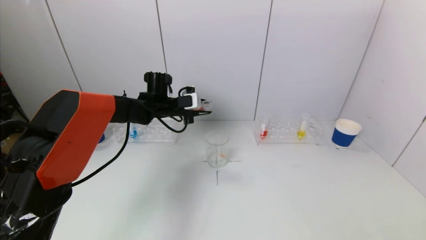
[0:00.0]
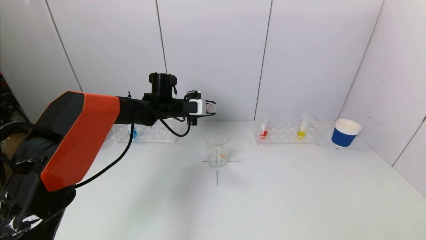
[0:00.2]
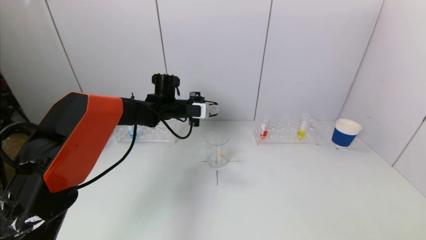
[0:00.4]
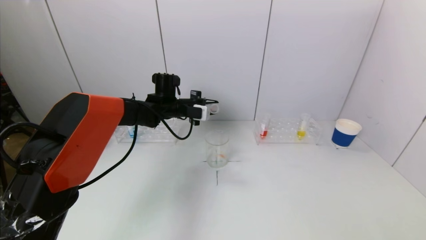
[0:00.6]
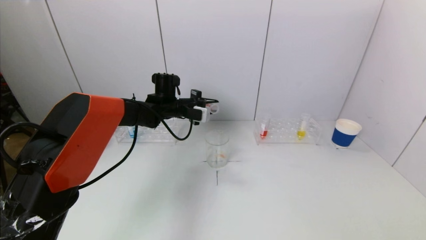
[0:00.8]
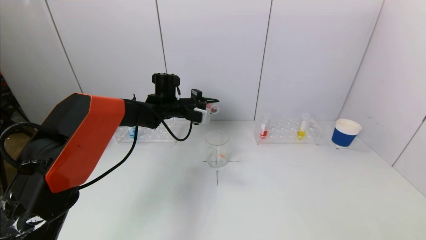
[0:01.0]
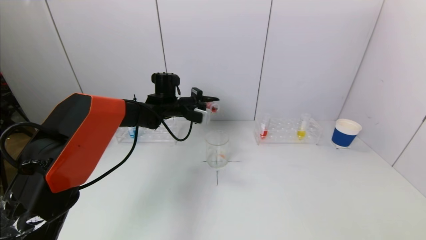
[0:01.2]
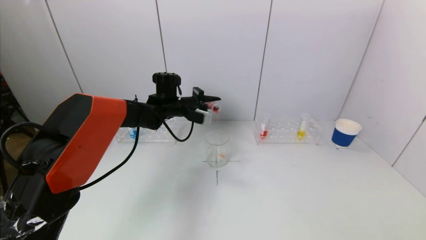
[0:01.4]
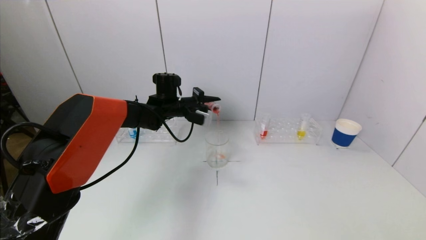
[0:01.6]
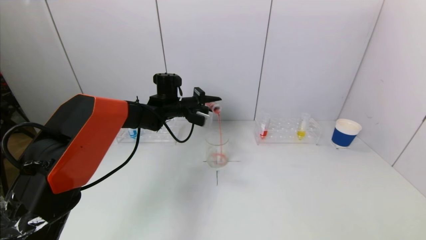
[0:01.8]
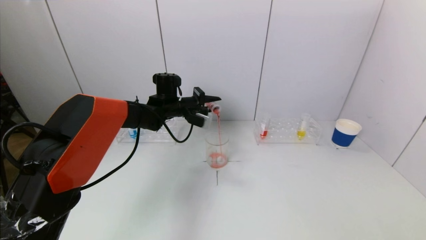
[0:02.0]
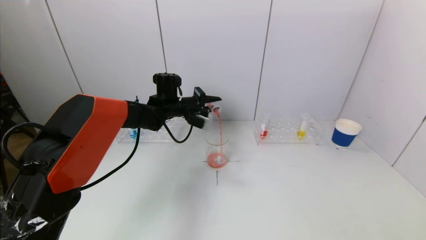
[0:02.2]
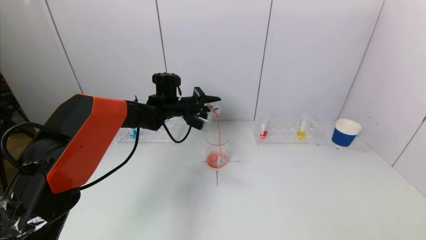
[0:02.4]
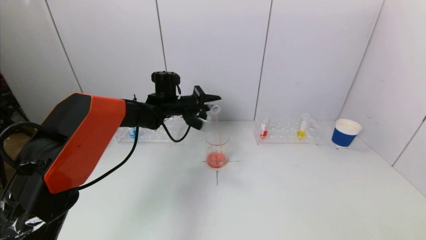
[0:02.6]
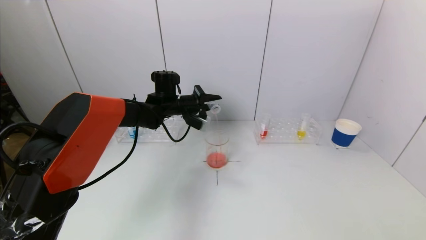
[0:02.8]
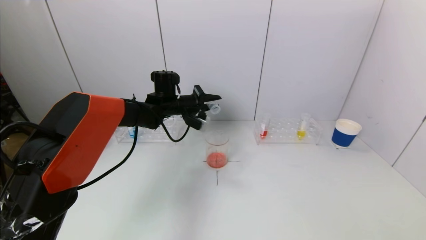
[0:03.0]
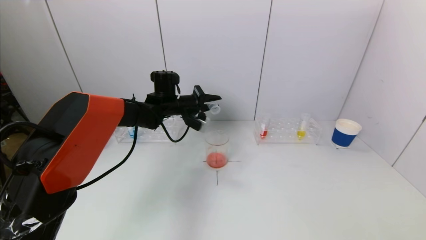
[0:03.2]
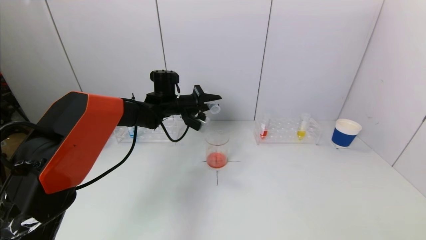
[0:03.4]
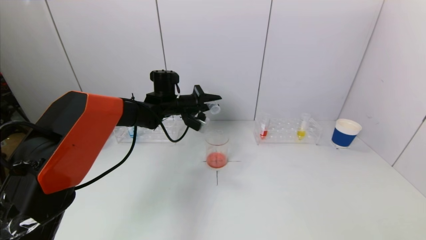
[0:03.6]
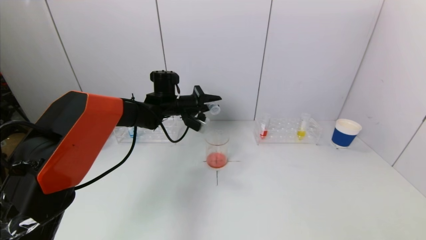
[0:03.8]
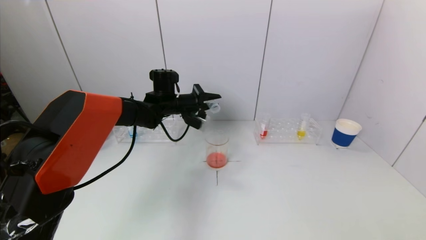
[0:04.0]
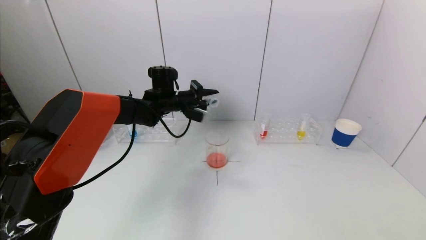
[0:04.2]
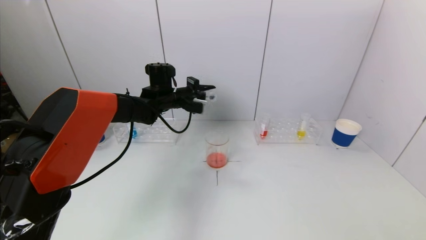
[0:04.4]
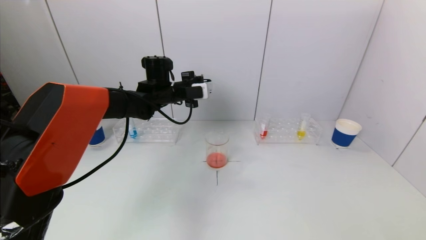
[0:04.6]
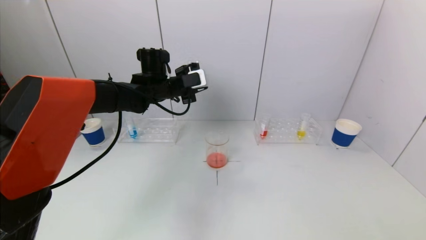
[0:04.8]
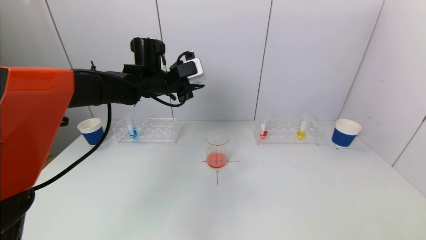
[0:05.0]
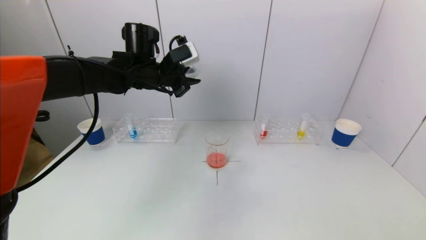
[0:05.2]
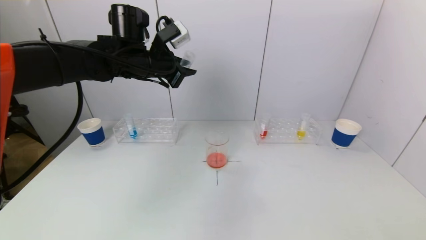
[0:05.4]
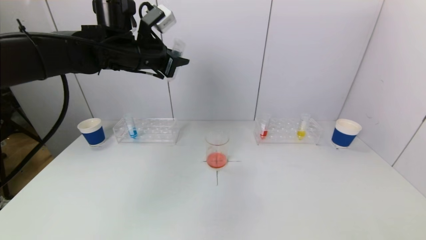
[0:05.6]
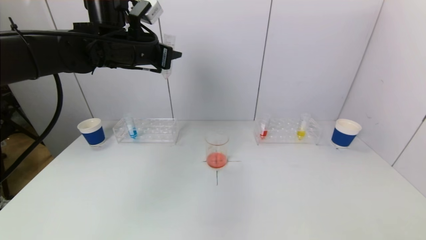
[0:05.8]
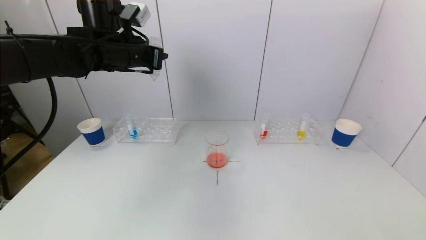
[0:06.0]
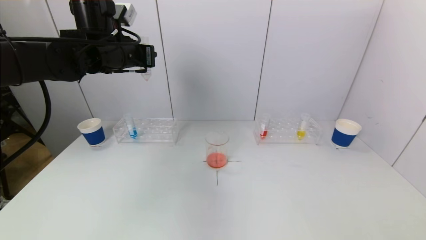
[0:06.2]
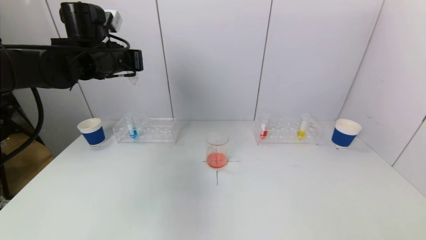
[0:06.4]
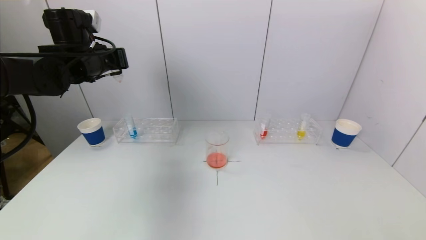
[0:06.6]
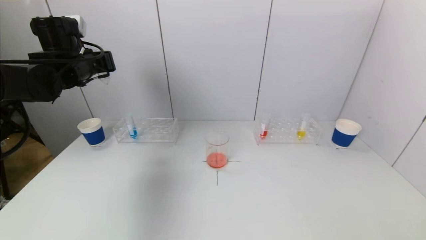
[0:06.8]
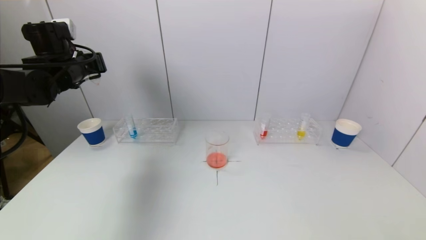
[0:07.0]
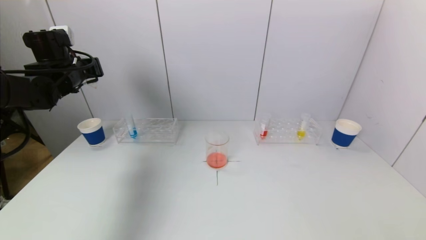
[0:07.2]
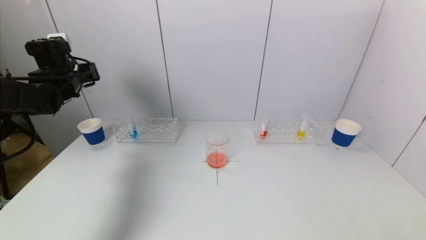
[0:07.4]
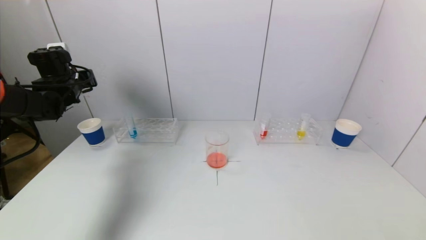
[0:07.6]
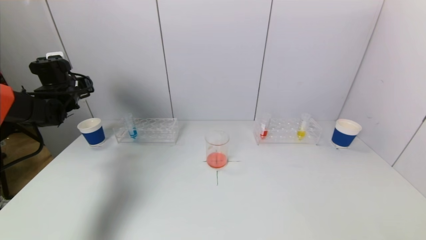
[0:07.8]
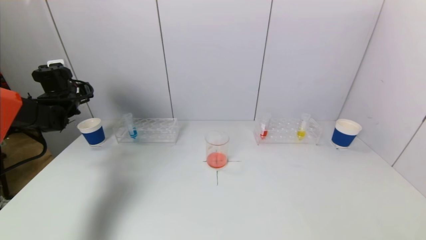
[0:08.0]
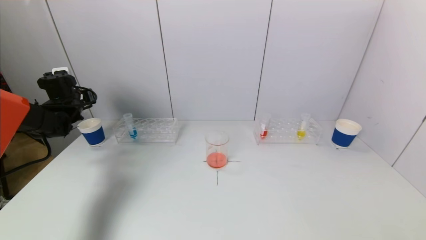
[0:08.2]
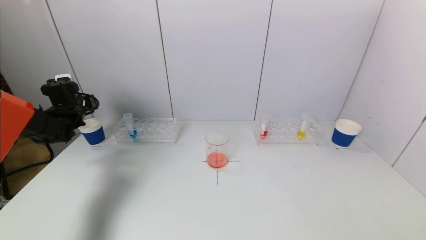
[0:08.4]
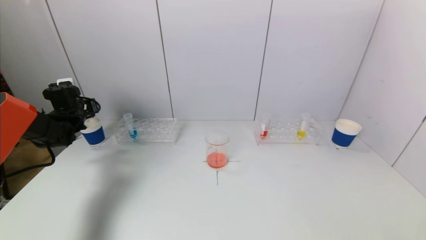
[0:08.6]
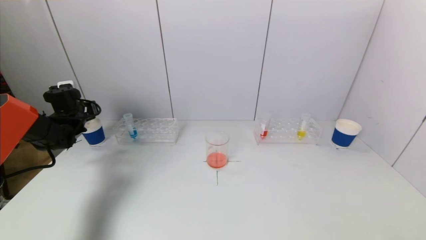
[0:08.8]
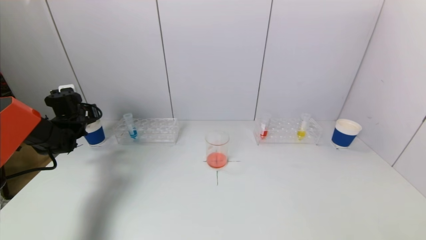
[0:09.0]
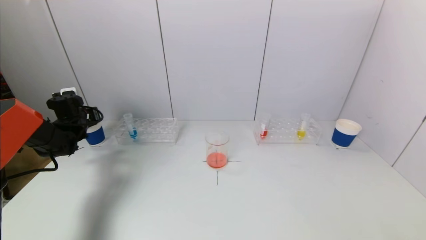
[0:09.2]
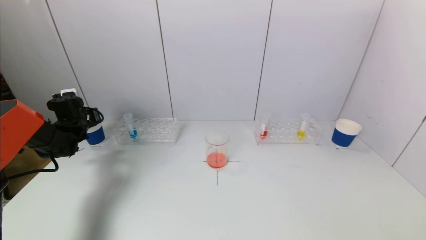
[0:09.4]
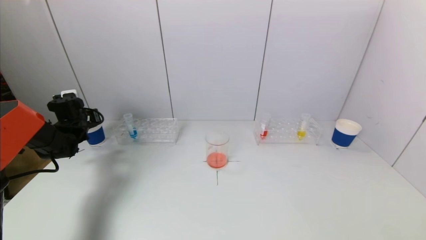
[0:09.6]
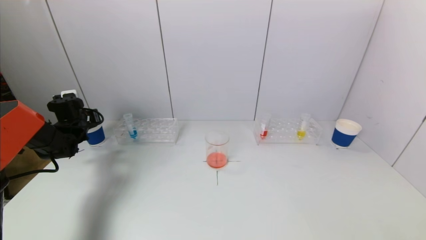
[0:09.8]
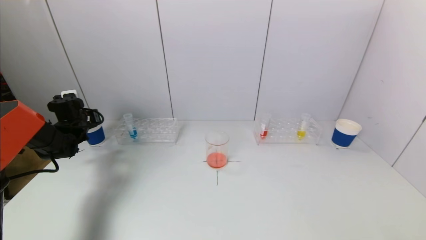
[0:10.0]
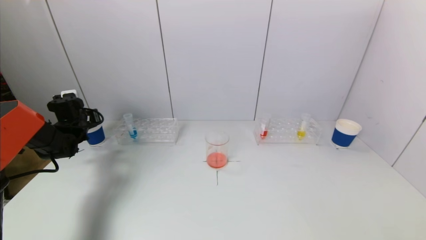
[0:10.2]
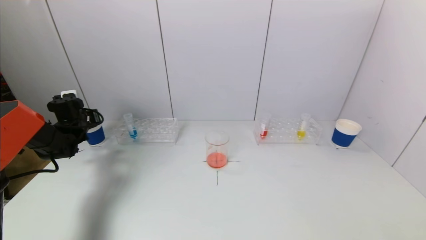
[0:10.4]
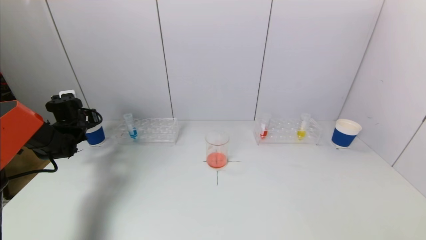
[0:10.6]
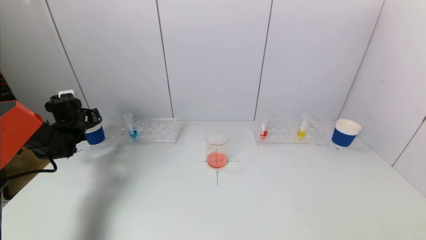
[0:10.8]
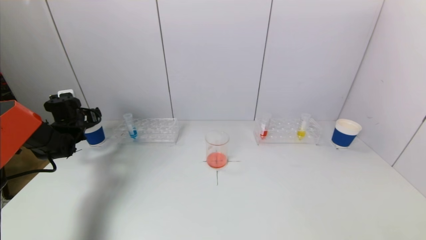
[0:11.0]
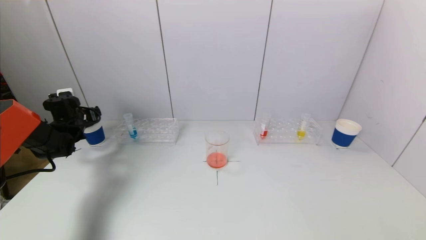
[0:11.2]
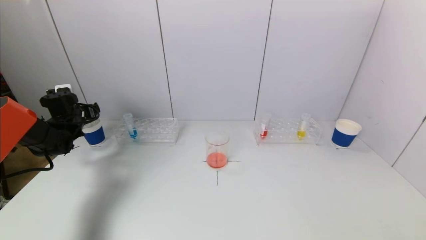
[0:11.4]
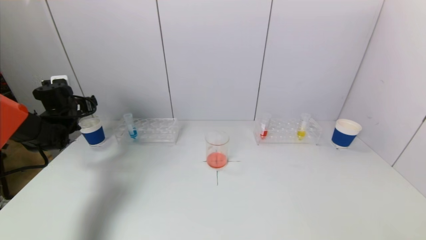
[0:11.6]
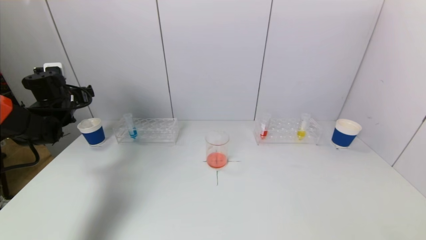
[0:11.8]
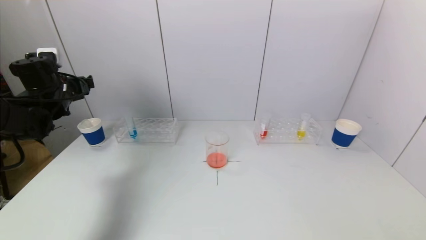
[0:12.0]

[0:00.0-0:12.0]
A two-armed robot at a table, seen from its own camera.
Task of the whole recording: pick up a test tube with pigment on left test tube rack and a test tube with pigment on right test tube rack by grippers and pour them into the beaker.
Step, 0:00.0 to 0:03.0: Pour the red reagent into the graduated cylinder with the left gripper.
Step, 0:03.2 to 0:11.2: Place the test tube into the paper cup with the left gripper.
0:01.6 to 0:03.0: The grippers move only a little.
0:04.4 to 0:06.0: The left gripper shifts about 15 cm upward, backward and to the left.
0:06.0 to 0:07.6: The left gripper is displaced to the left and downward by roughly 20 cm.
0:07.6 to 0:09.0: The left gripper heads downward, covering some 10 cm.
0:09.0 to 0:10.4: Both grippers stay about where they are.
0:10.4 to 0:12.0: The left gripper shifts approximately 15 cm upward and backward, and opens.

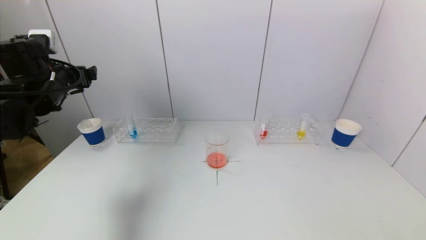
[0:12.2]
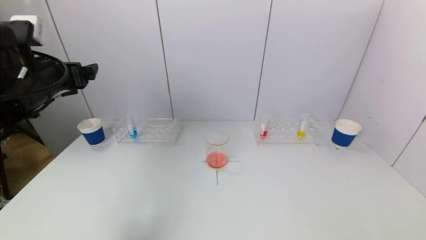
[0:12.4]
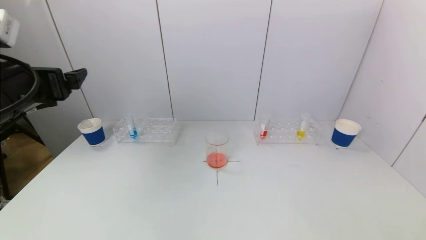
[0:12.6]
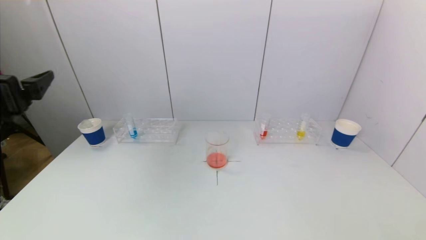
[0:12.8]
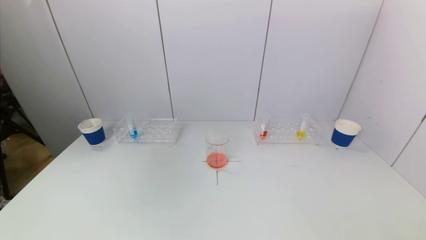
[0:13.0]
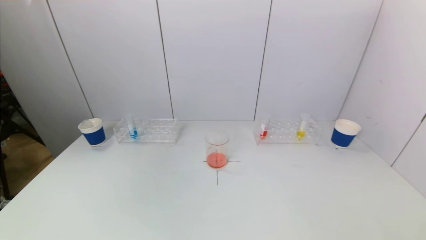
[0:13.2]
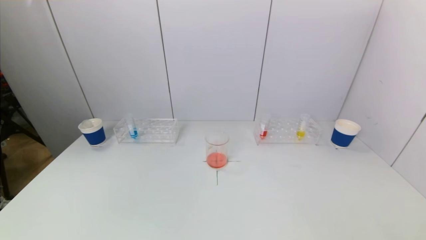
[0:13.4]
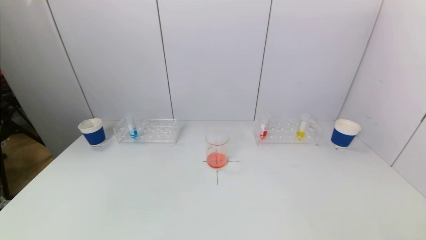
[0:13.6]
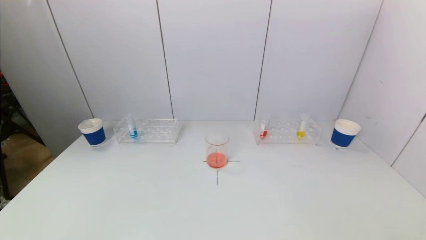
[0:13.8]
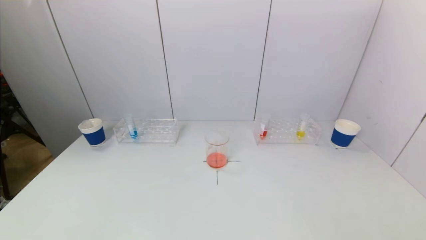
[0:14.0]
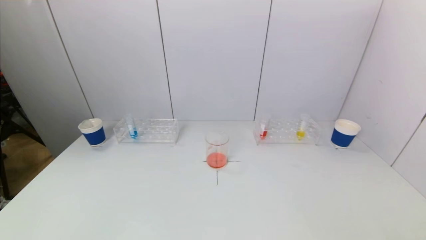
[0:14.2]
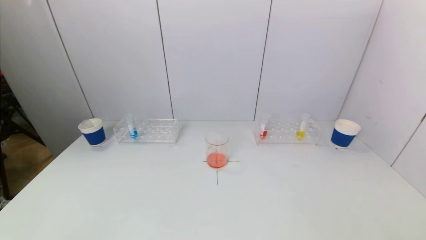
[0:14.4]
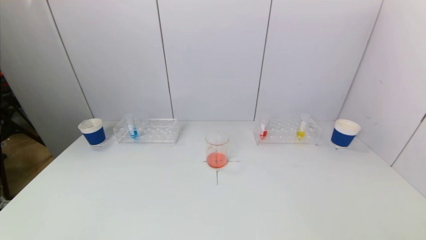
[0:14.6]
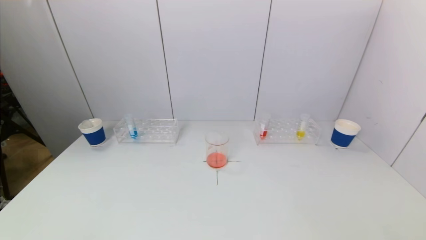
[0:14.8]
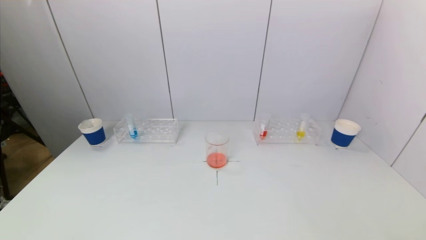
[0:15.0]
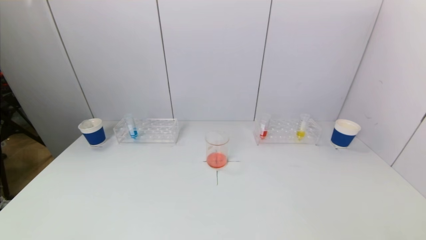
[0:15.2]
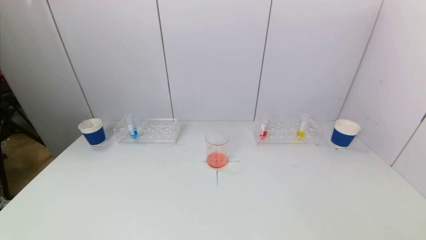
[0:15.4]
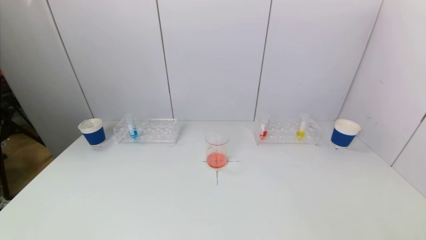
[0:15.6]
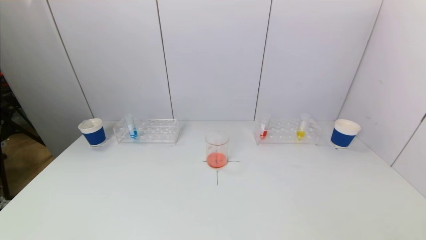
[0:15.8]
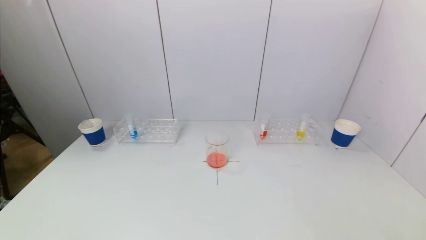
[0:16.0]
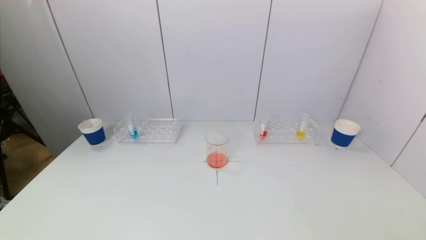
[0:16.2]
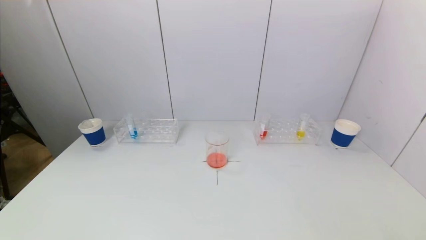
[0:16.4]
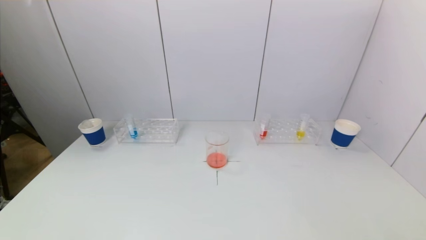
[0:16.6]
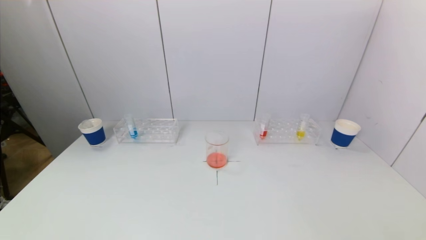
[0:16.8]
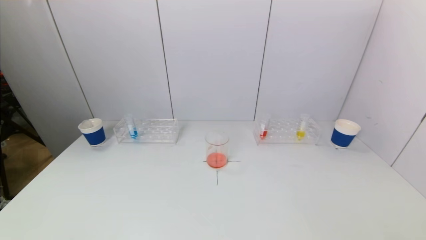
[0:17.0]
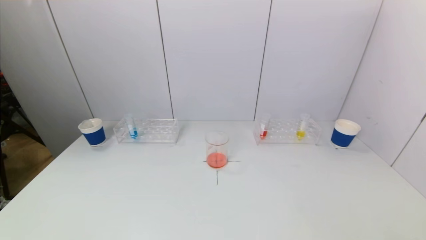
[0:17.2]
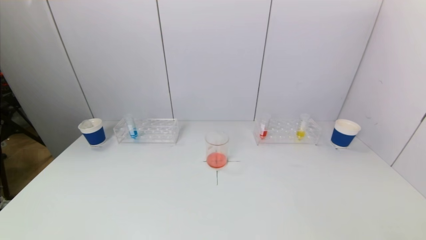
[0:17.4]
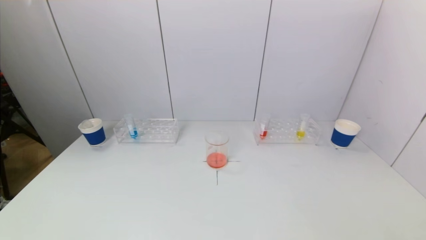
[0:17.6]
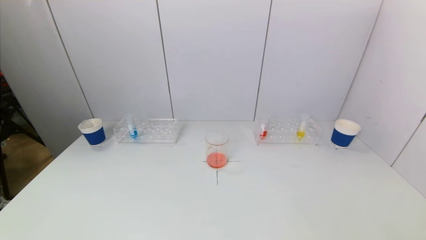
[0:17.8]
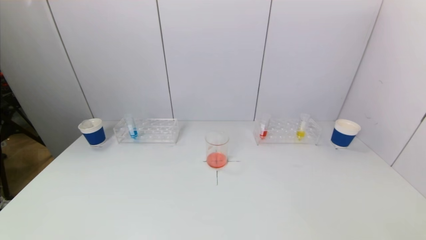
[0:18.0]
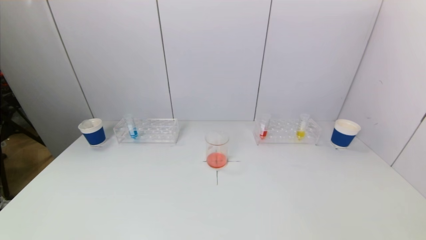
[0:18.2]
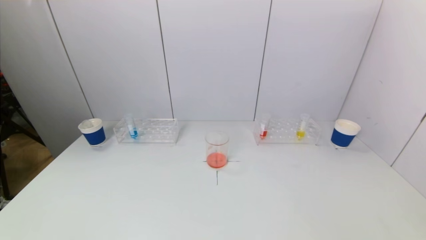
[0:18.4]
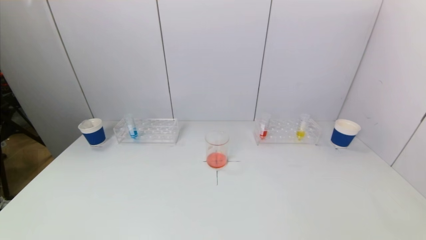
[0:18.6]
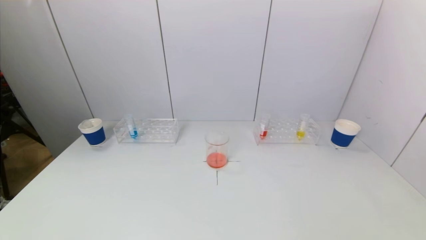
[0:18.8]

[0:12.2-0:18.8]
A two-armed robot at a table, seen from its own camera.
Task of the whole recording: pick up a test tube with pigment on left test tube rack and a test tube with pigment on right test tube rack by grippers and pour them into the beaker.
0:12.2 to 0:13.8: The left gripper travels backward by approximately 35 cm.
